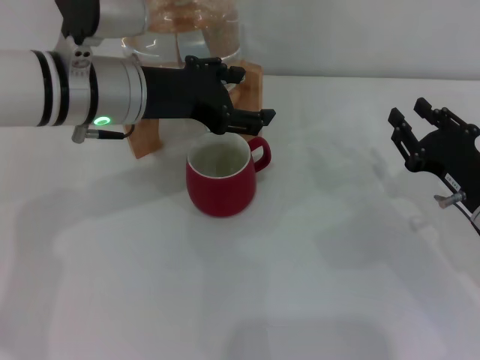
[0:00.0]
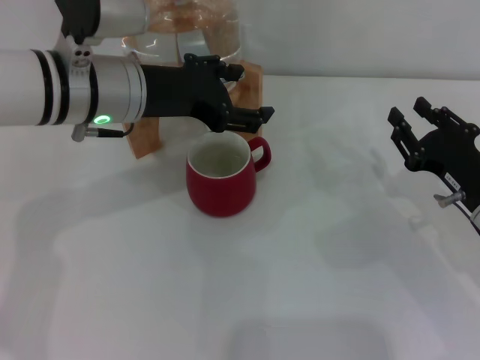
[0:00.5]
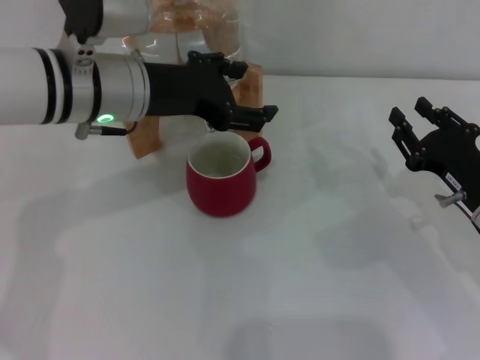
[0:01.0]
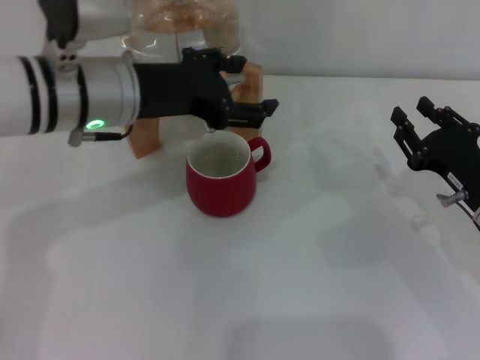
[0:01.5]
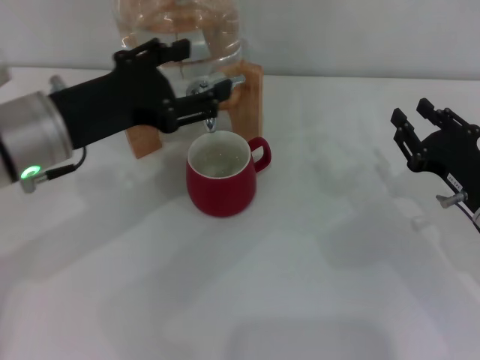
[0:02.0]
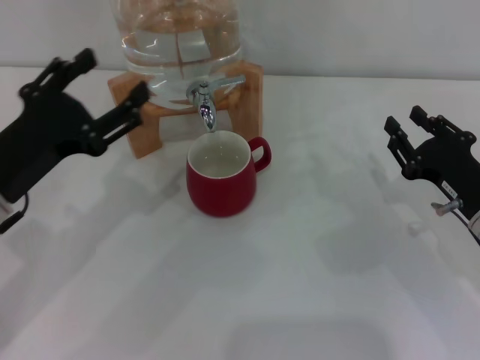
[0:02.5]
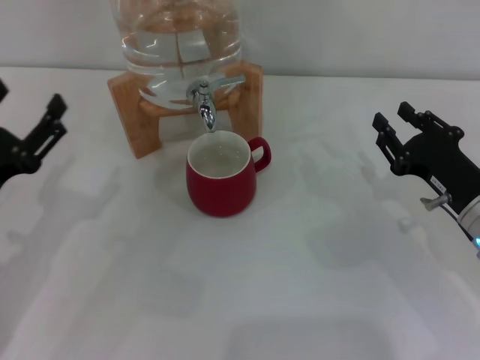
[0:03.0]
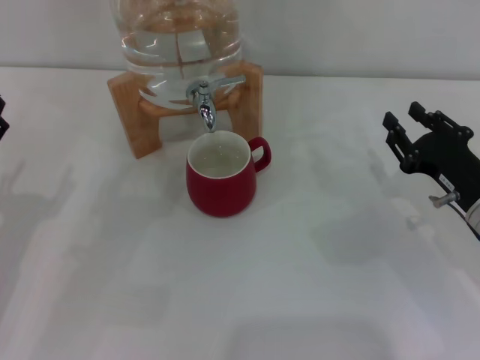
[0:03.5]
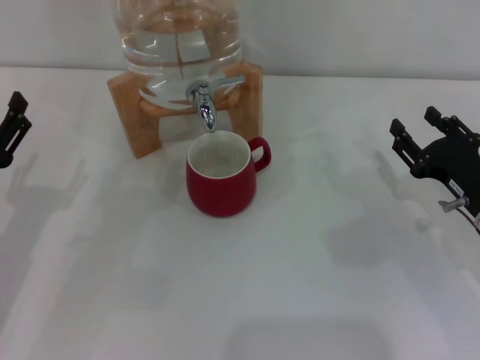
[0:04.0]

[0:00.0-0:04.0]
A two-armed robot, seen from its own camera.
Task of the whole recording: the right gripper pick up the red cup and place it horizontally under the faucet, the left gripper turn on the faucet to fill the cup, and then turn off the faucet.
0:00.0 to 0:02.0: The left gripper is displaced backward and to the left by about 10 cm.
0:02.0 to 0:04.0: The left gripper shifts roughly 15 cm downward, to the left and backward.
